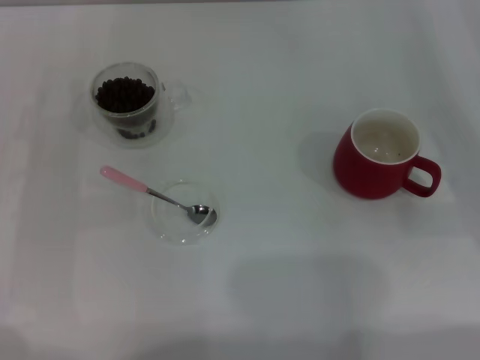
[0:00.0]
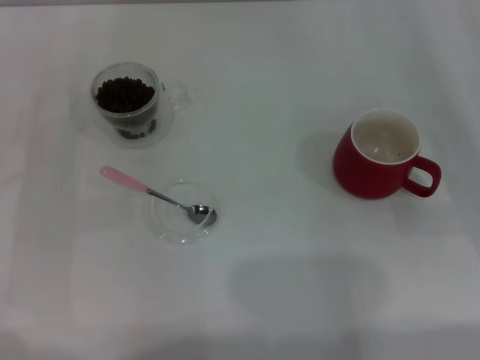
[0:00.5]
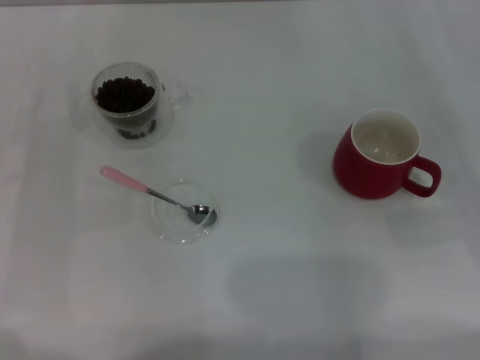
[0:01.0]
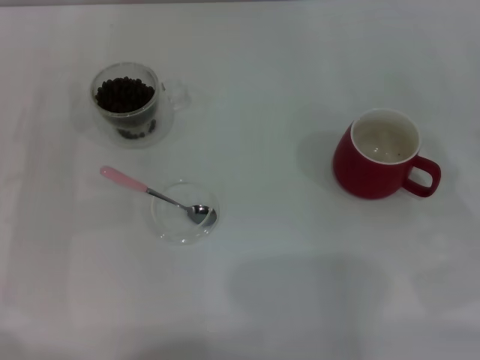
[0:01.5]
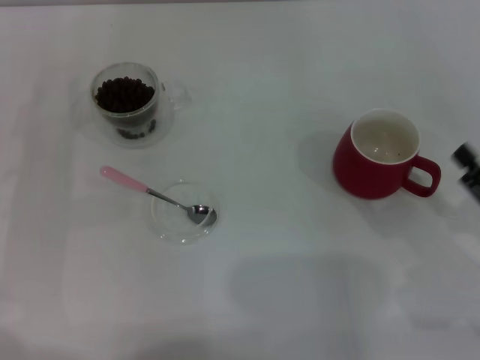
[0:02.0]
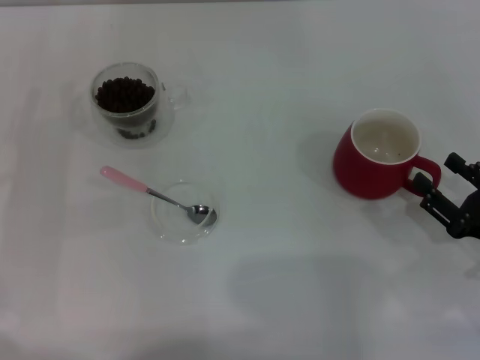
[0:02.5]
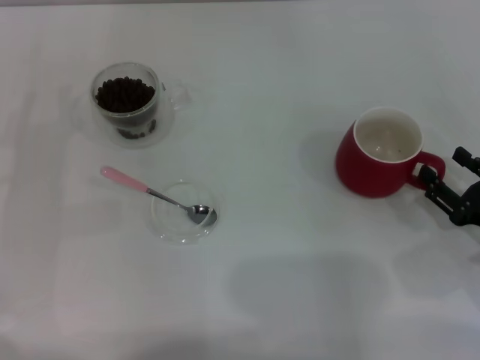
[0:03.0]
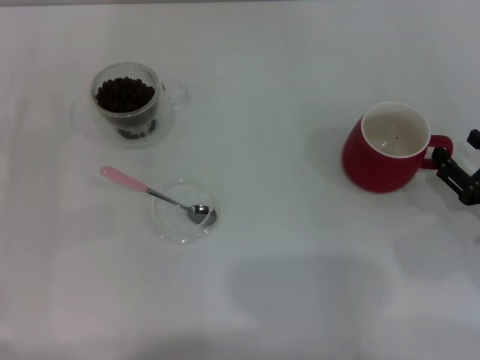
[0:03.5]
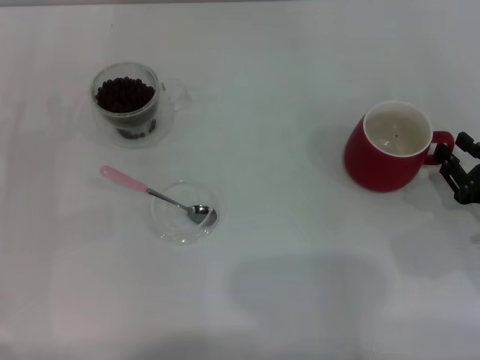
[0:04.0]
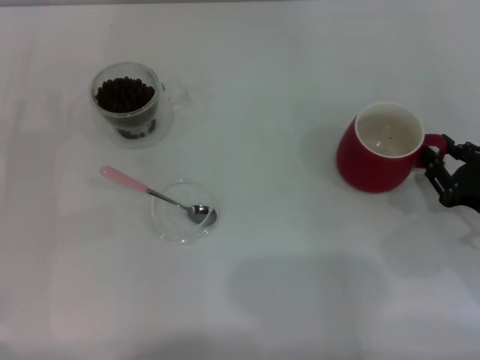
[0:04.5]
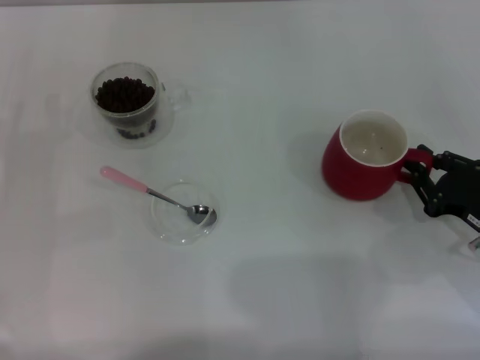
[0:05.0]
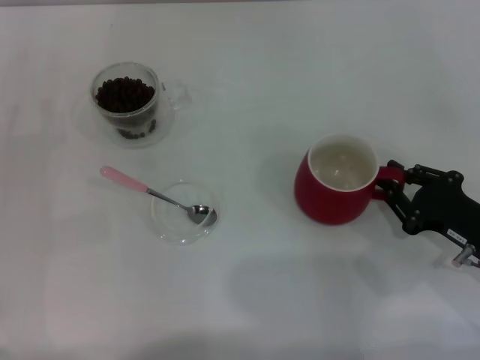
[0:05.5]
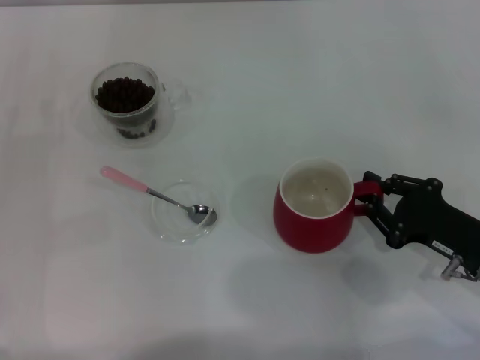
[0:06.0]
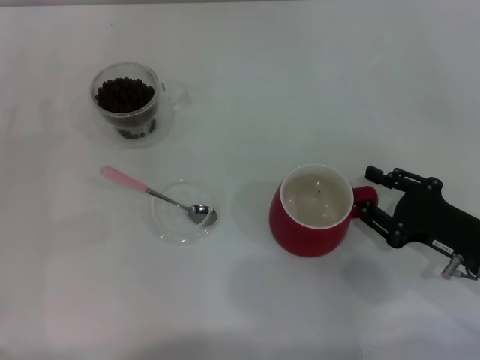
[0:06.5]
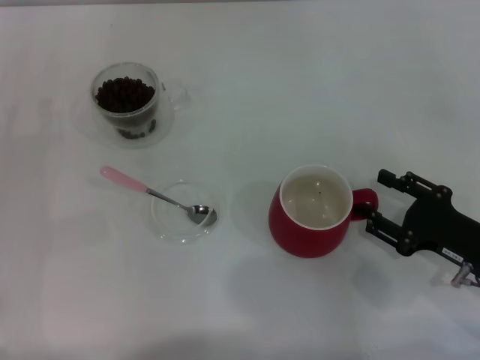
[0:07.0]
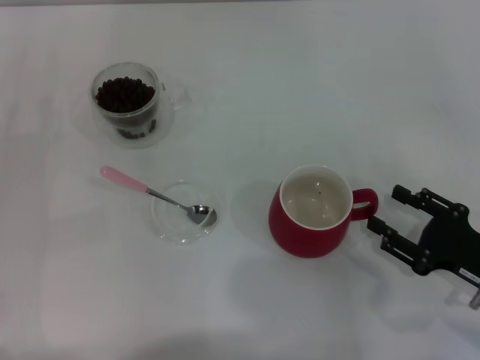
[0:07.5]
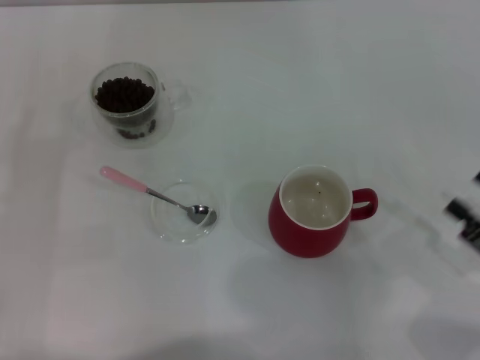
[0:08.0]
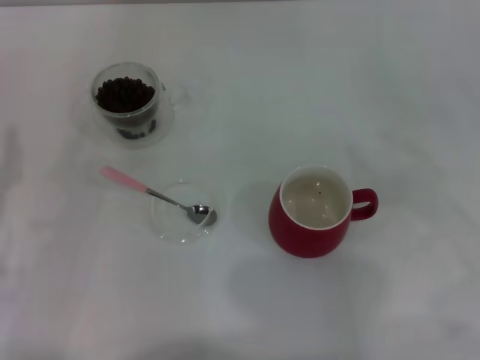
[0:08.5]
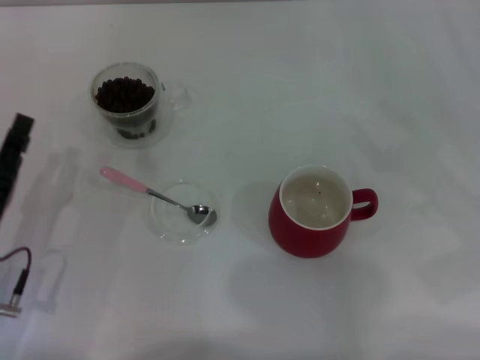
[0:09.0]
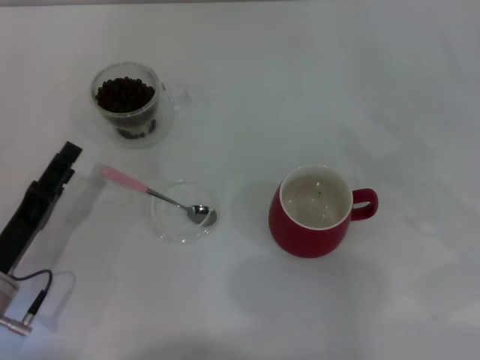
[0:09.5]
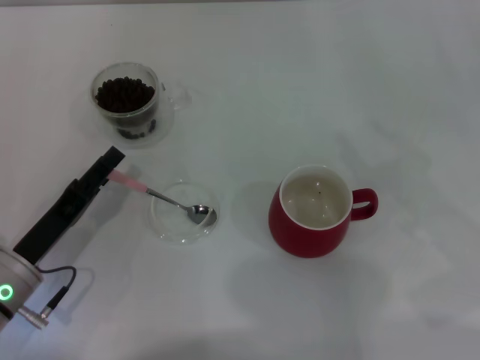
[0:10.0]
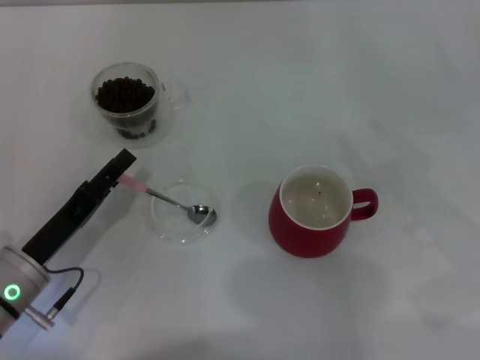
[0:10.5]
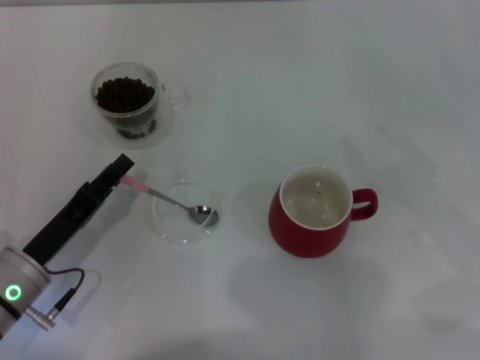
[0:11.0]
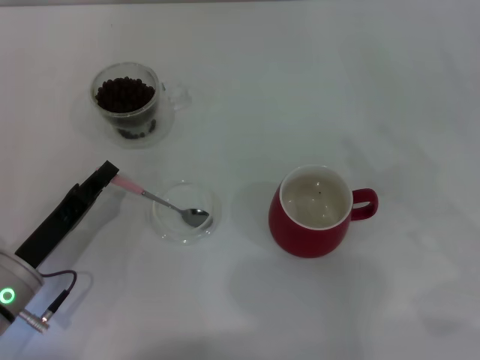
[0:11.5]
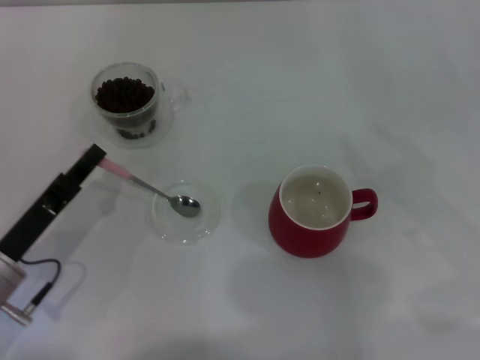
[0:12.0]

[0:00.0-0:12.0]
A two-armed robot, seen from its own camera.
Task of the whole recording: Use a pink spoon to take out the coffee beans from the glass and pour them into the red cup.
Step, 0:00.0 to 0:07.5: Move the cup to the center of view with the left gripper.
0:00.0 to 0:02.0: The right gripper moves backward and to the left, roughly 10 cm.
0:02.0 to 0:04.0: The right gripper ends up some 5 cm from where it was, and closes up.
0:04.0 to 0:06.0: The right gripper moves to the left, about 5 cm, and closes its fingers.
0:06.0 to 0:08.0: The right gripper moves backward and to the right, about 10 cm, and opens.
0:08.0 to 0:10.0: The right gripper travels upward by about 5 cm. The left gripper goes approximately 10 cm to the right and downward.
0:10.0 to 0:12.0: The left gripper closes its fingers.

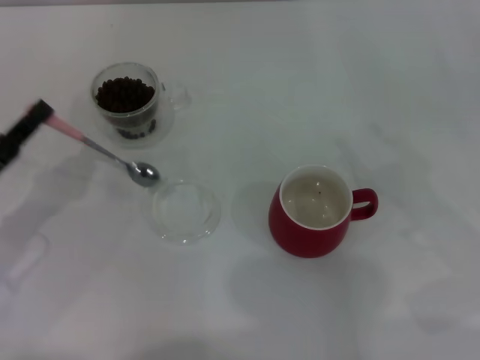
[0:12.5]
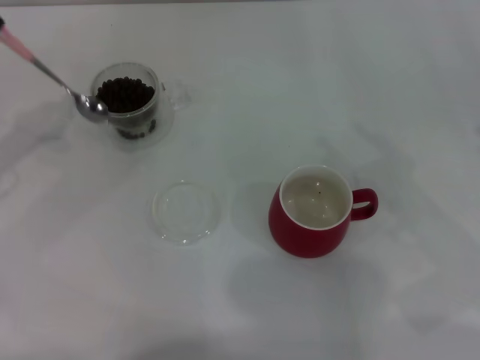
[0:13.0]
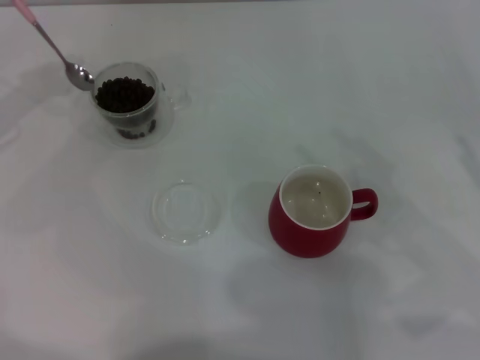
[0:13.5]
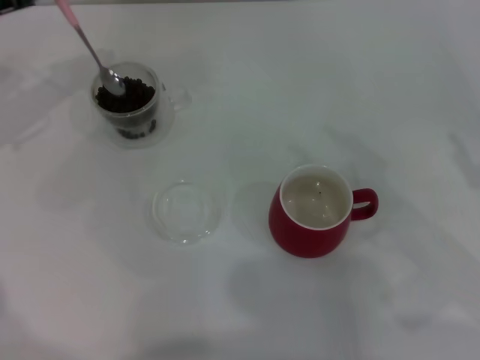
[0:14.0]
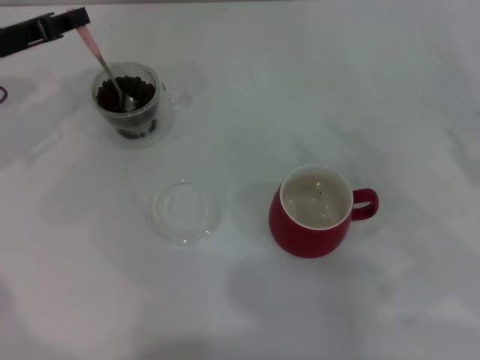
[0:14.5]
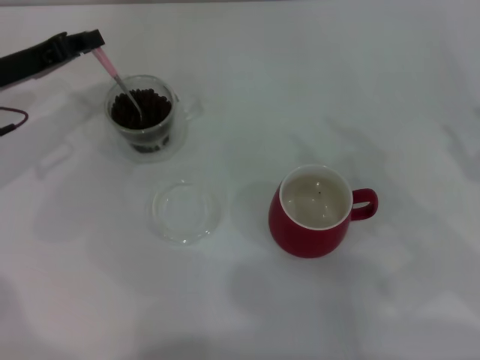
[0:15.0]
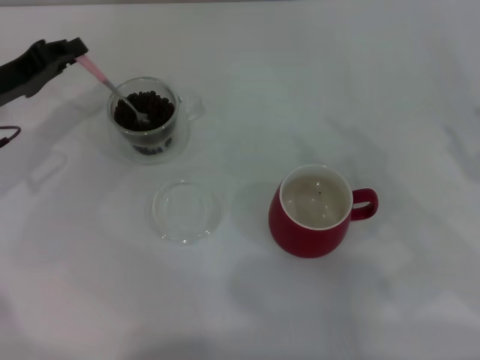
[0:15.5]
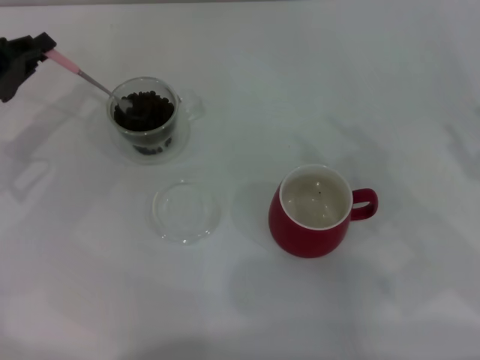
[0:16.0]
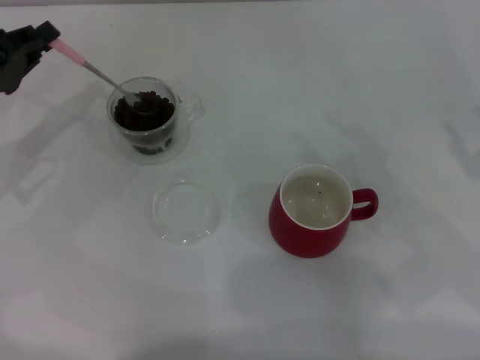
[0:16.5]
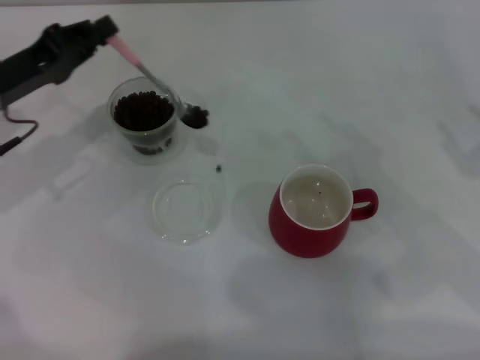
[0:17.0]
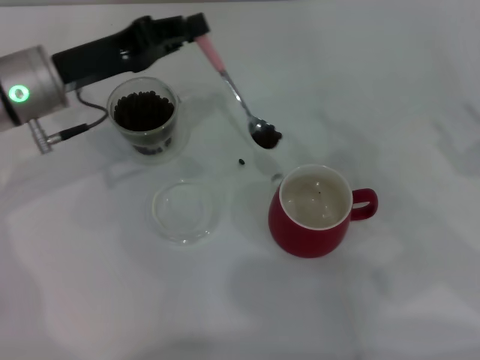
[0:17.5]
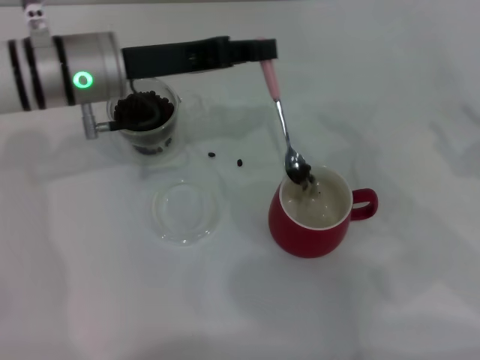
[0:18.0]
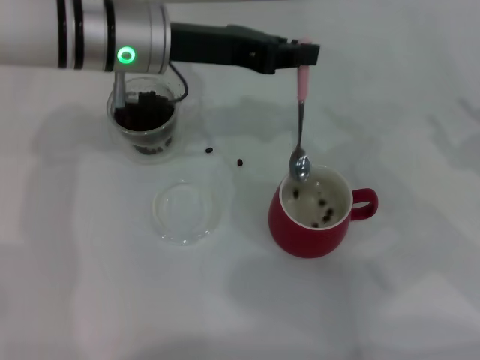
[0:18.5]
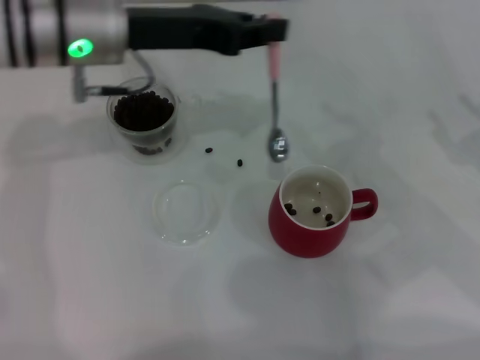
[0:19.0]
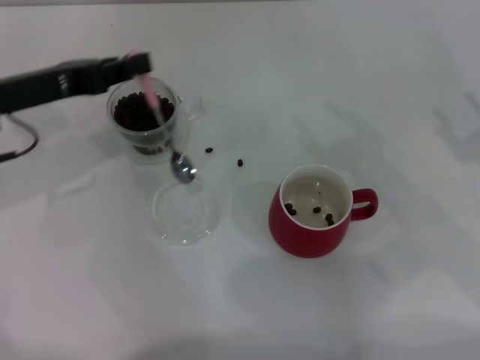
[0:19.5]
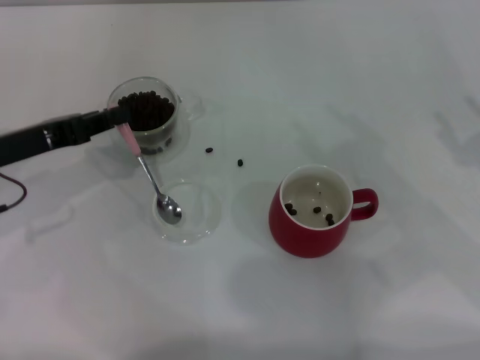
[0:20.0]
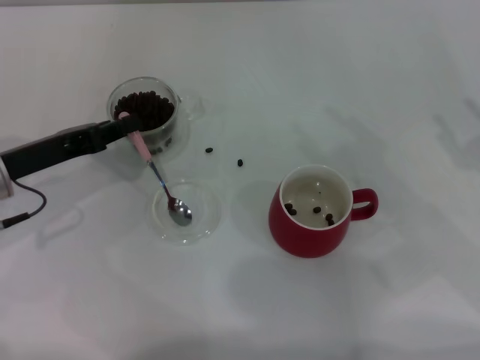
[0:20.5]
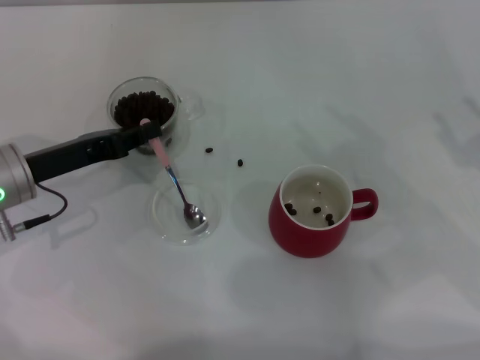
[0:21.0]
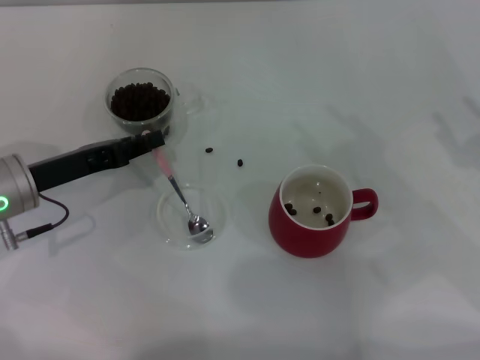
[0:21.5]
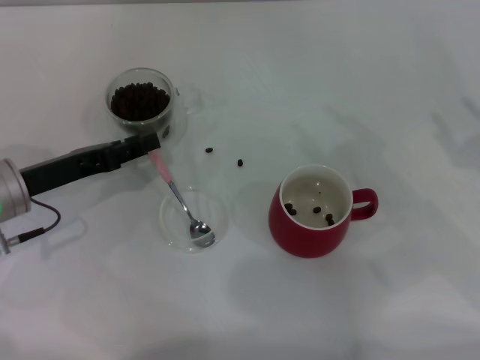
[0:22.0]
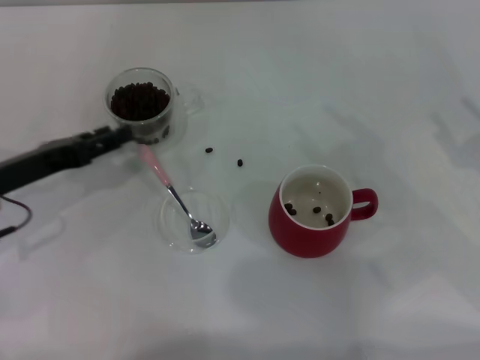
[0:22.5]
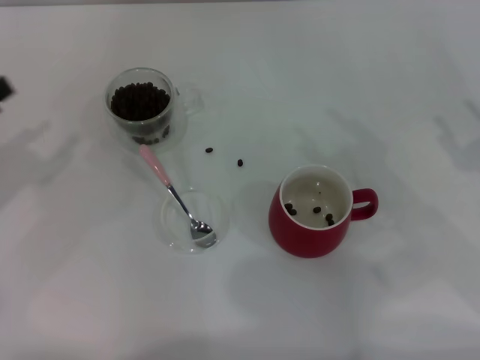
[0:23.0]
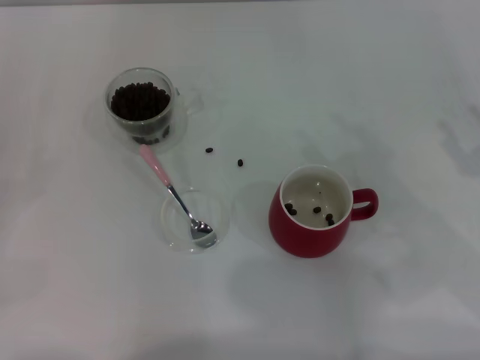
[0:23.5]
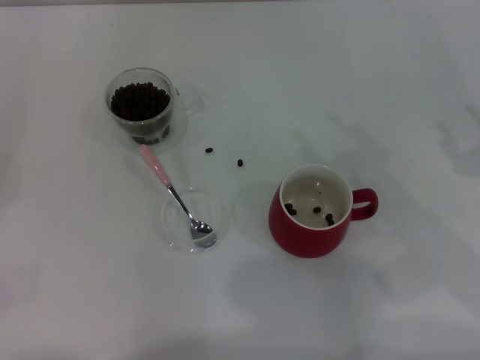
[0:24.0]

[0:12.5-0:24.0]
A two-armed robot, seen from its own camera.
Task of the whole recording: Use a pink spoon to take out the coffee beans from the glass and pour them into the red cup.
0:12.5 to 0:14.5: The left gripper goes approximately 20 cm forward and upward.
0:14.5 to 0:16.5: The left gripper heads backward, covering about 5 cm.
0:16.5 to 0:18.5: The left gripper goes some 20 cm to the right.
0:18.5 to 0:20.0: The left gripper goes about 20 cm to the left, backward and downward.
0:20.0 to 0:22.0: There are only small adjustments of the grippers.
0:22.0 to 0:24.0: The left gripper shifts some 20 cm to the left and backward, and opens up.
